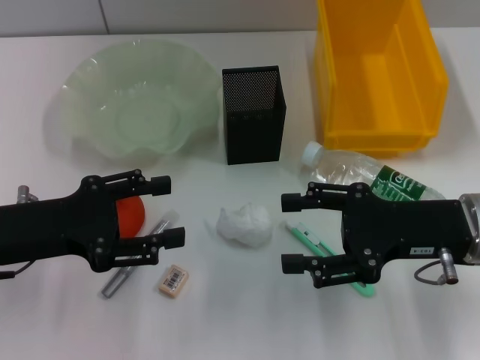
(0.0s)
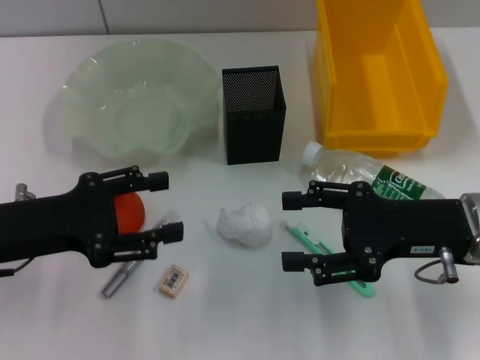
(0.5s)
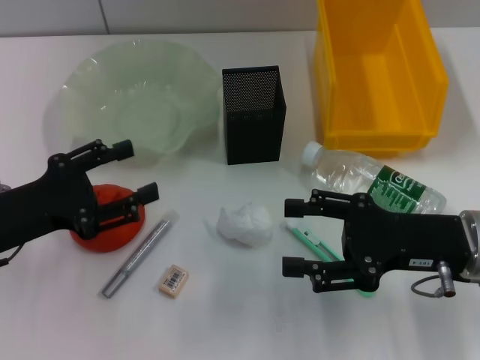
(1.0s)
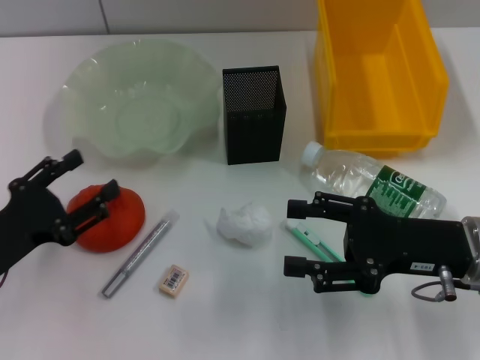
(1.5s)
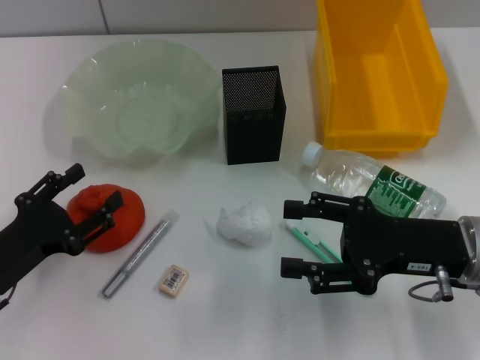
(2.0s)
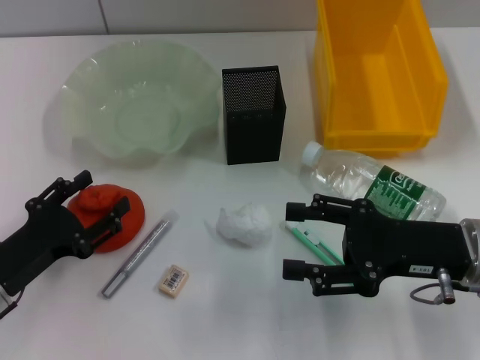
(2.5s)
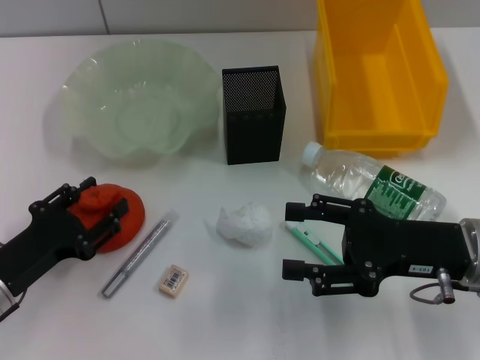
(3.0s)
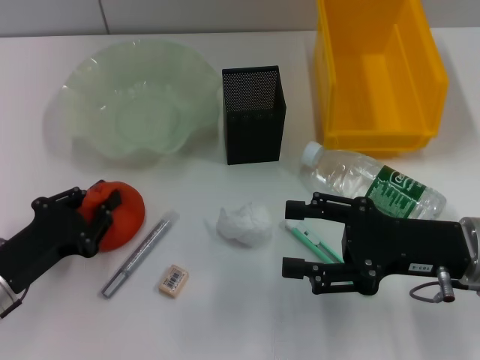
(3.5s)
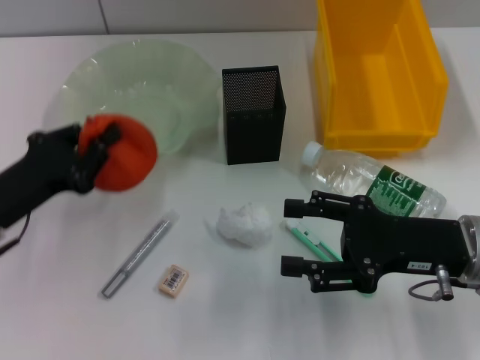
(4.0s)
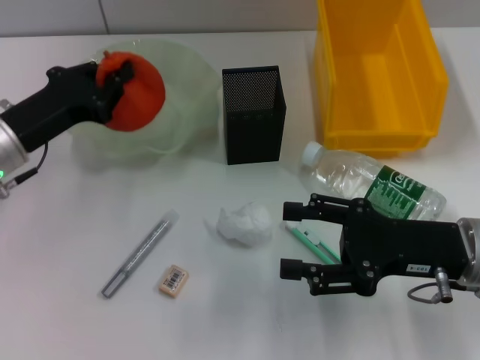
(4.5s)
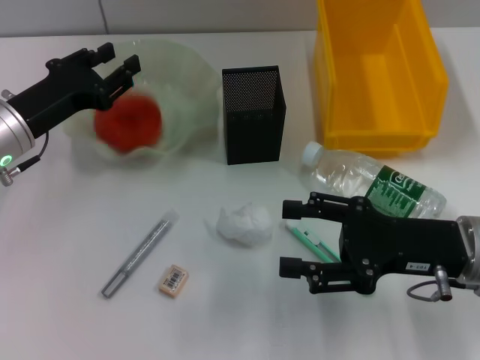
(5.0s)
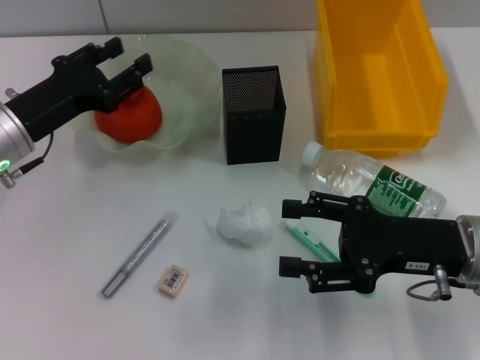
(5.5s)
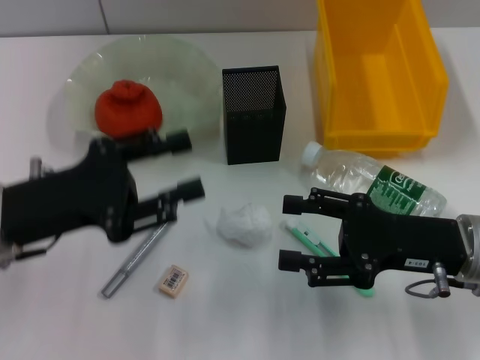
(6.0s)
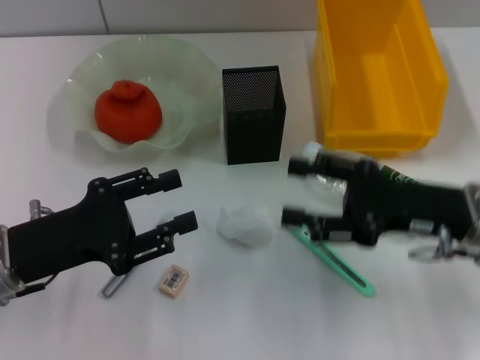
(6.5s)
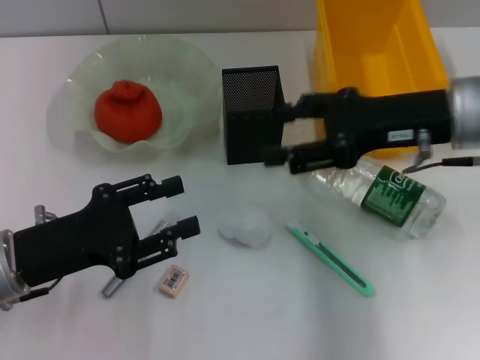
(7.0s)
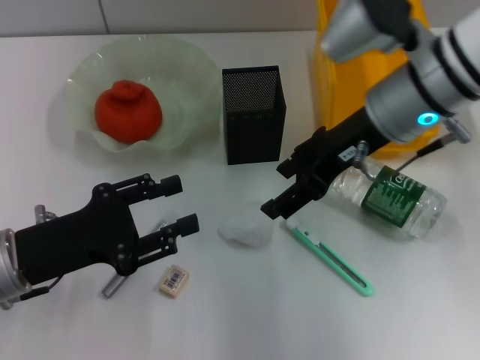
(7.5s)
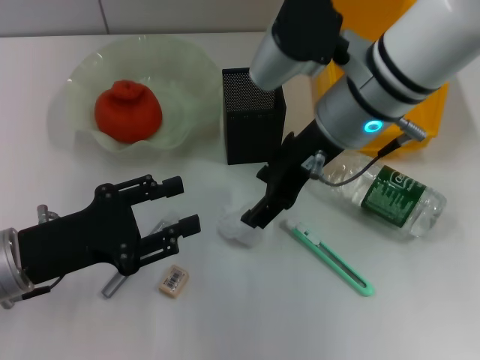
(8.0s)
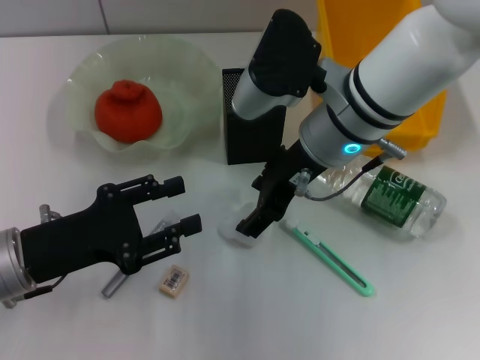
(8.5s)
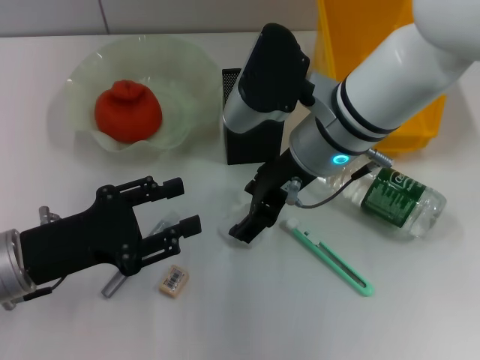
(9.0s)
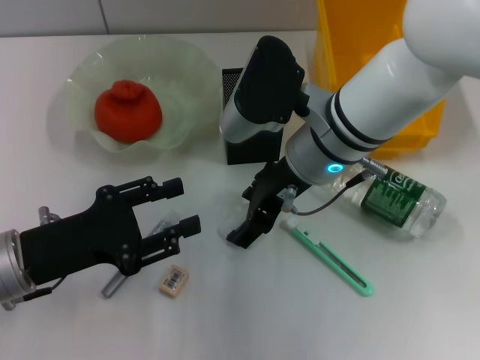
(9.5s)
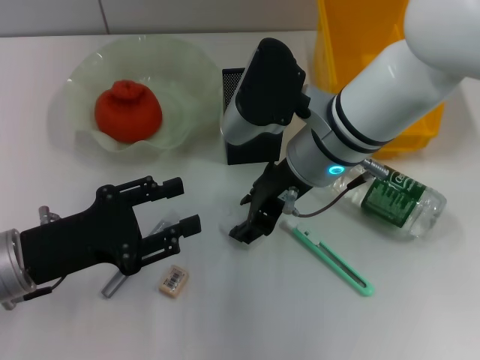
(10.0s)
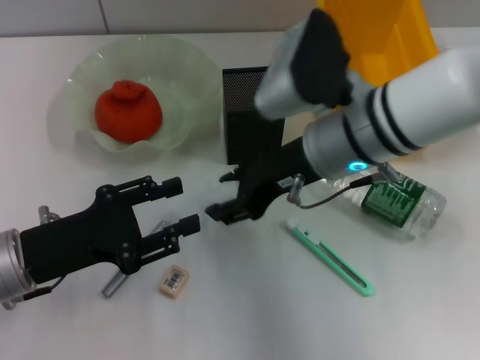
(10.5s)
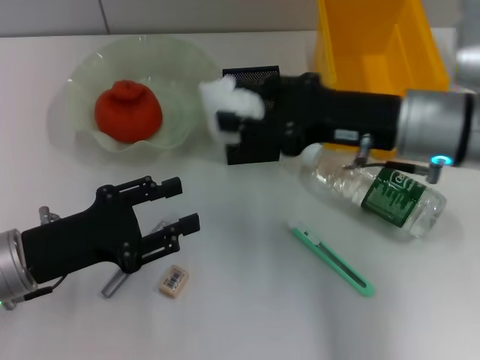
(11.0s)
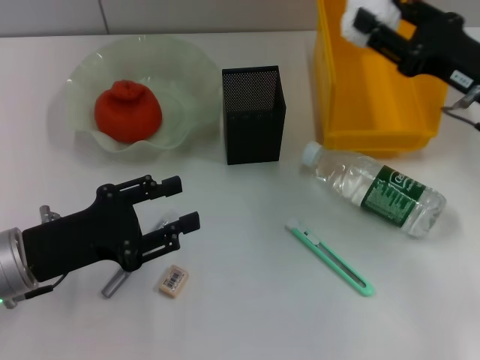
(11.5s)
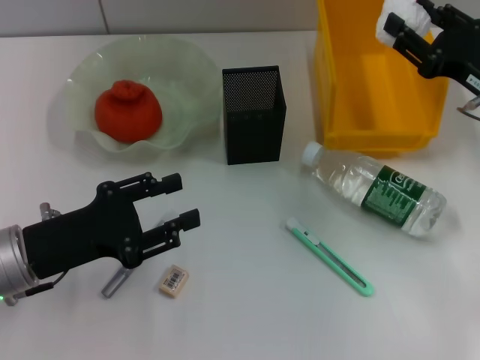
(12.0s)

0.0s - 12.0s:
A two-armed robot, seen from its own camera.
Step, 0.0s - 3.0s: Grab the orange with the left hand.
Step, 3.5s - 5.0s: Place the orange into the fruit bowl with the left hand.
Step, 5.5s - 9.5s: Grab the paper ball with the right hand.
0.0s - 2.0s: The left gripper travels downward by approximately 10 cm.
2.0s - 4.0s: The left gripper changes place by approximately 5 cm, and closes up.
4.0s - 6.0s: The left gripper travels forward and back again, some 10 cm each way, and opens its fingers.
6.0s - 8.0s: The right gripper travels to the left, upward and forward by approximately 20 cm.
8.0s - 10.0s: The right gripper ends up about 5 cm from where it was.
10.0s - 12.0s: The right gripper goes about 20 cm to the right.

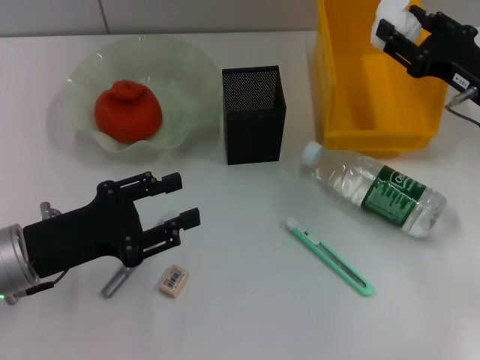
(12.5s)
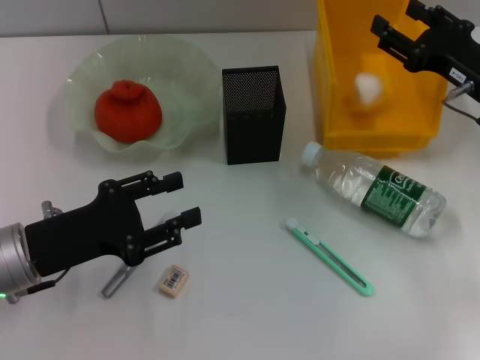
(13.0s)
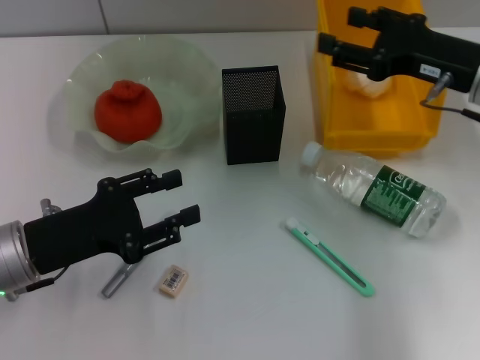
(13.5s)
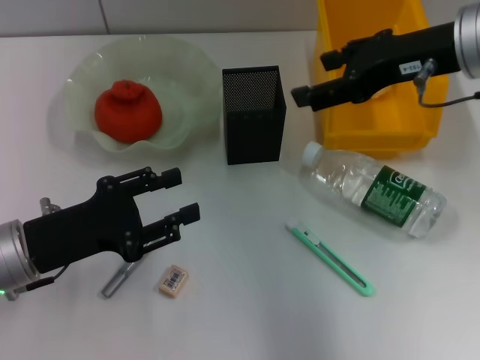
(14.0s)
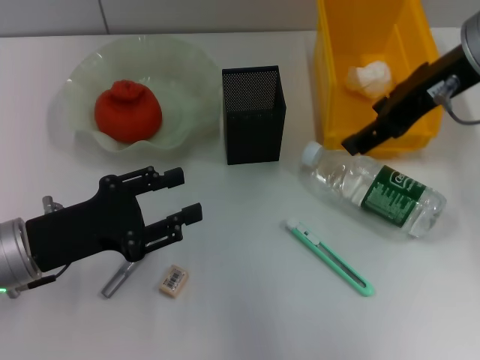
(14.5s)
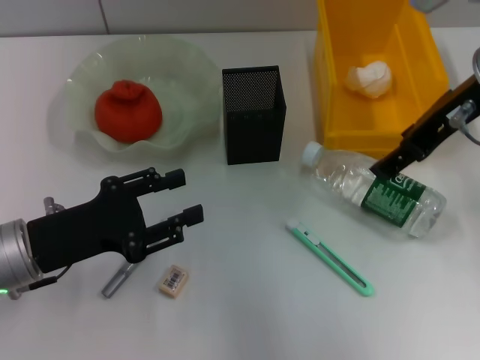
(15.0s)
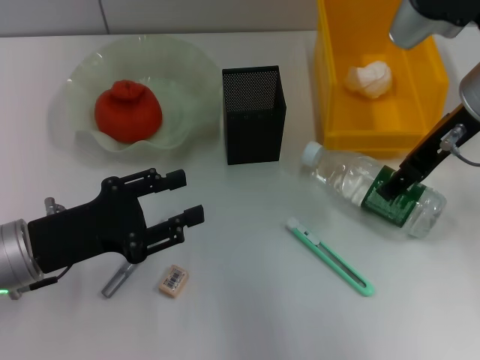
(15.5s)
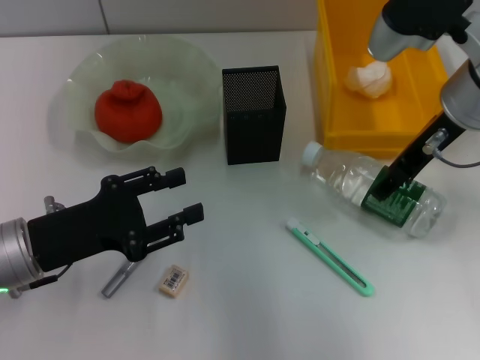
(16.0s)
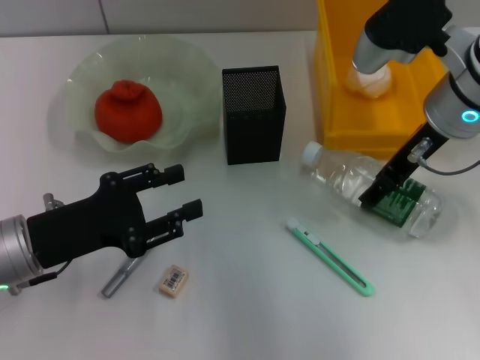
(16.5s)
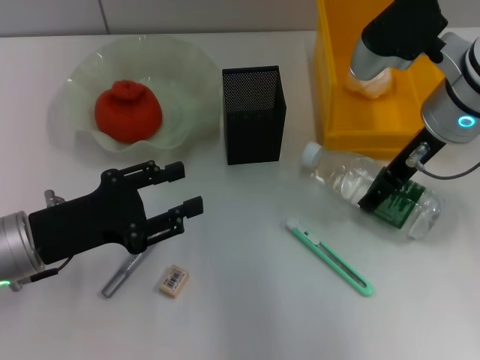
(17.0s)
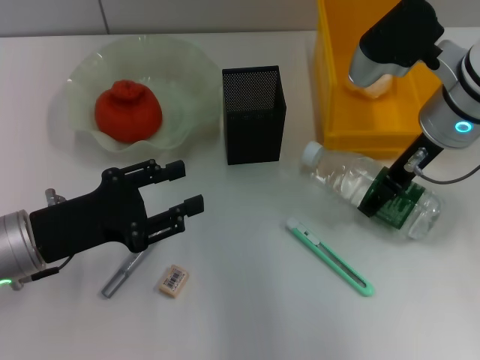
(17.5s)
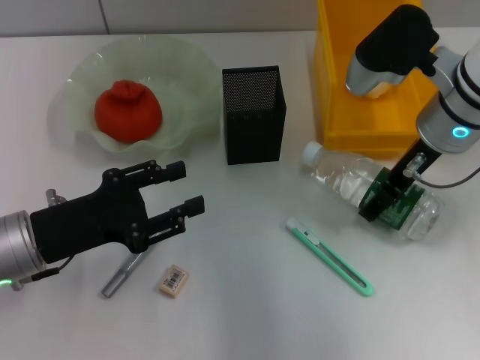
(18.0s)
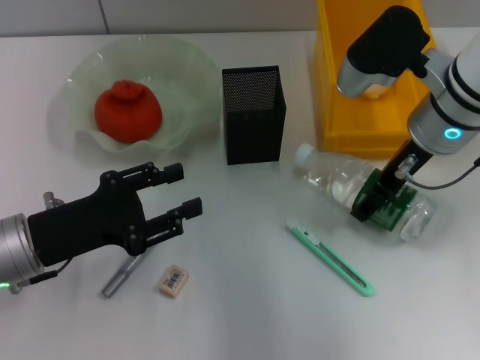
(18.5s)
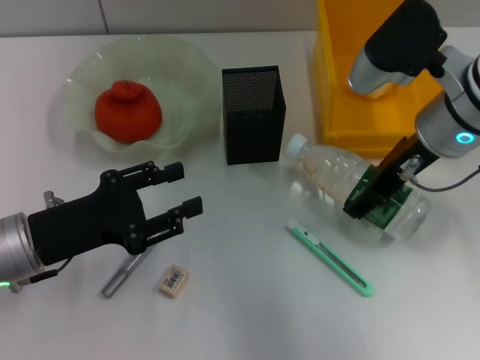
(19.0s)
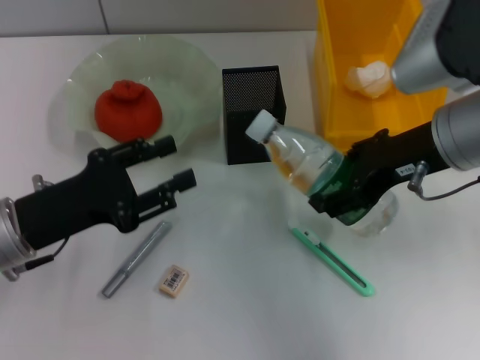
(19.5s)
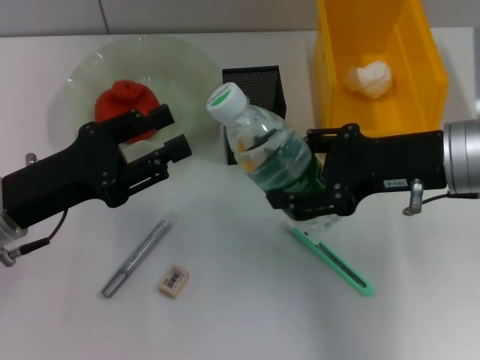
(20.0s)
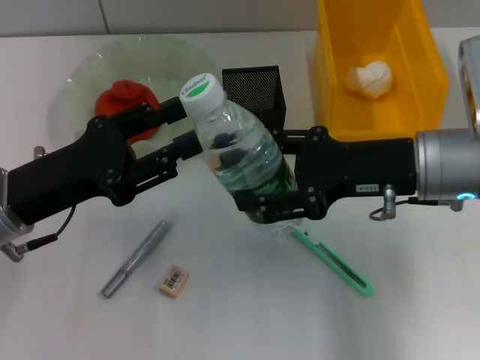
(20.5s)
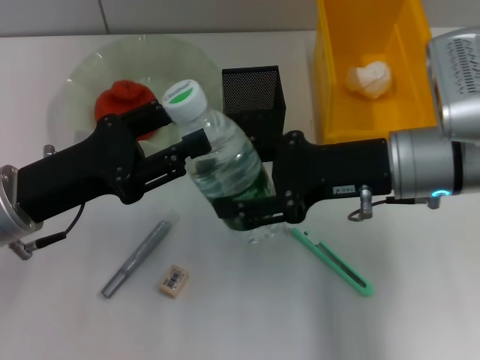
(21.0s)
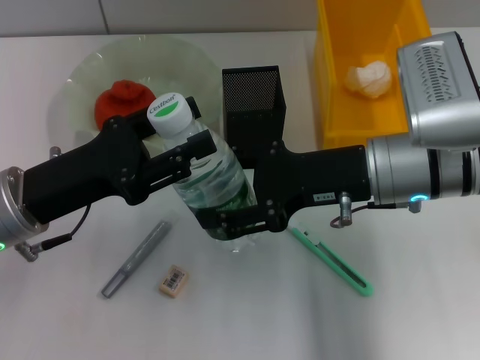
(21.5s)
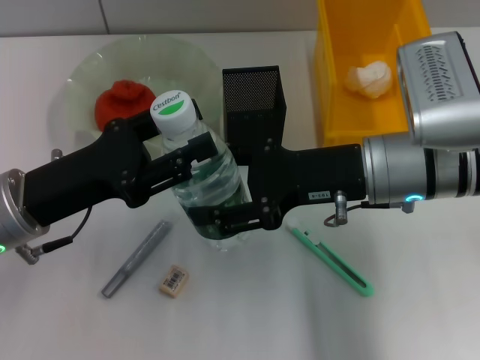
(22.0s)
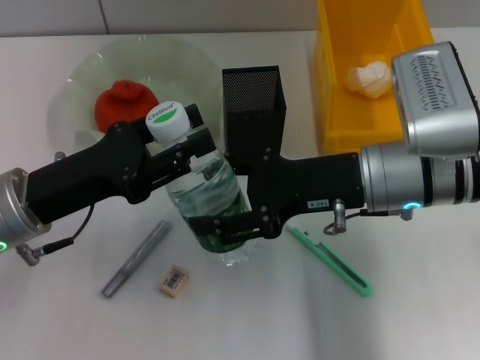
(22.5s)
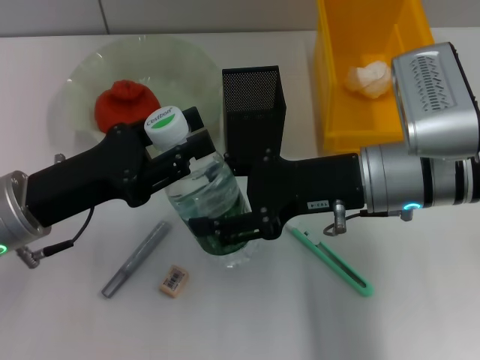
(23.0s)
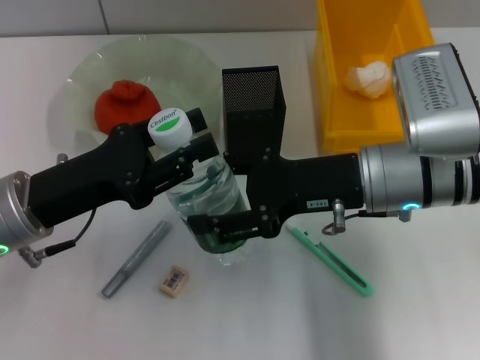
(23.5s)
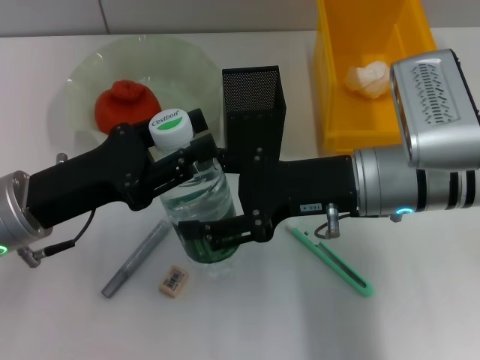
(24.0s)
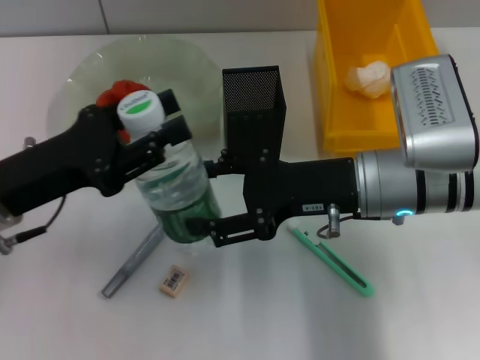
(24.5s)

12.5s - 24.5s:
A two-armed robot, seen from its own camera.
Step, 13.5s - 18.0s: Grab the water bottle with the right hand.
12.5s - 14.5s: The right gripper is displaced upward and to the left by approximately 20 cm, and opens up.
14.5s - 16.5s: The right gripper goes approximately 10 cm downward.
16.5s - 18.5s: The grippers move only a little.
18.5s - 20.5s: The right gripper moves backward, approximately 5 cm.
22.5s - 24.5s: The grippers move only a little.

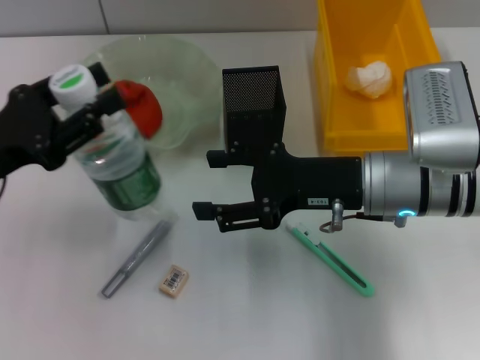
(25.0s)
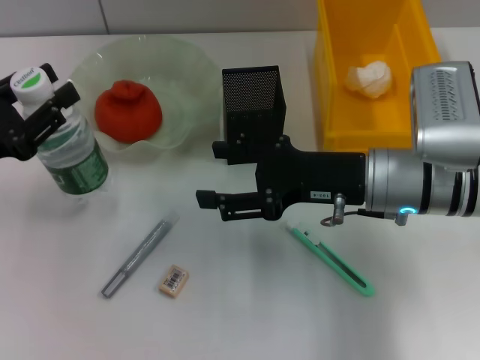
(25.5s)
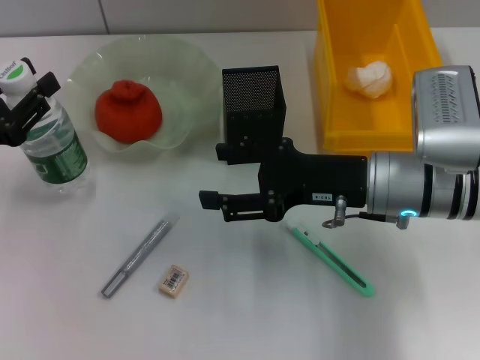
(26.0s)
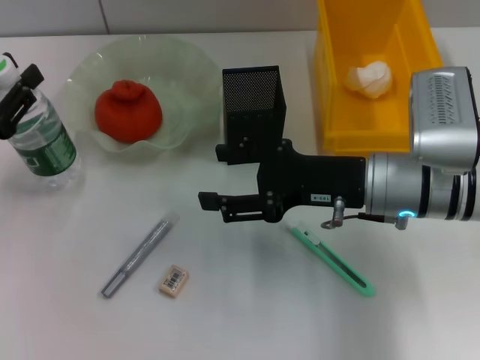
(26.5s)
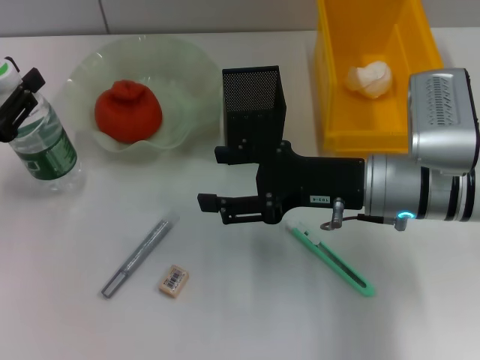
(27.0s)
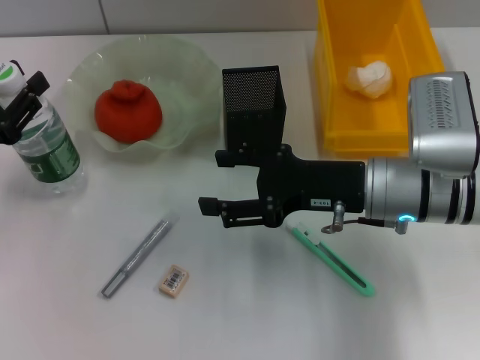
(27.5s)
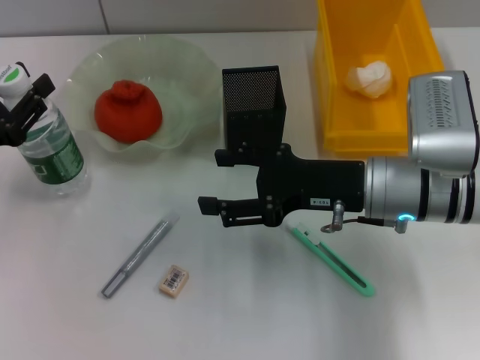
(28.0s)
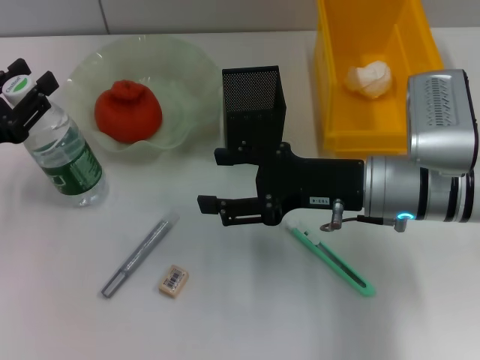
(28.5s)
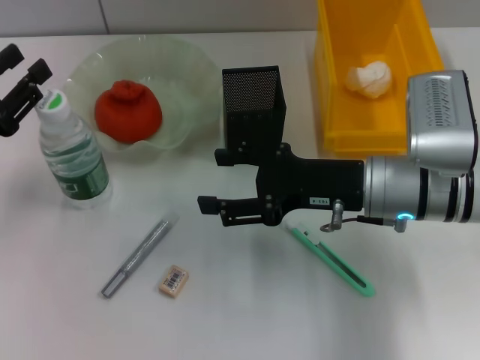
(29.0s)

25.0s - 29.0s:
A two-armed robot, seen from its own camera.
25.0s - 27.0s: The left gripper ends up roughly 5 cm from where it was.
27.0s - 29.0s: The two grippers keep their place.
